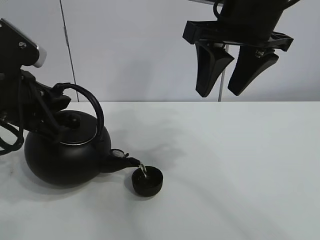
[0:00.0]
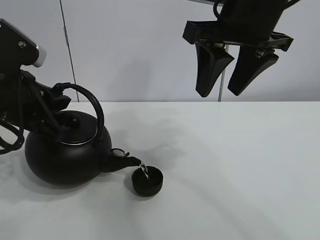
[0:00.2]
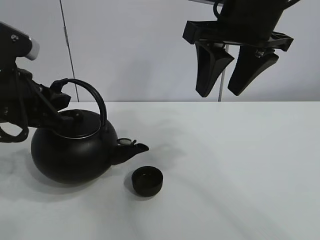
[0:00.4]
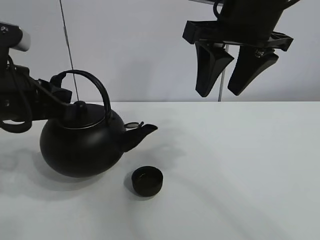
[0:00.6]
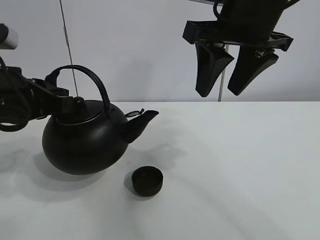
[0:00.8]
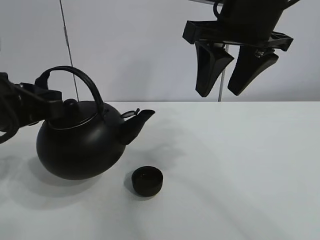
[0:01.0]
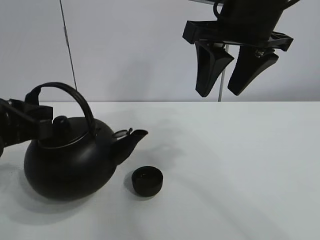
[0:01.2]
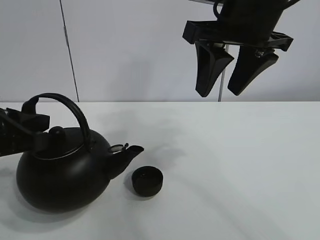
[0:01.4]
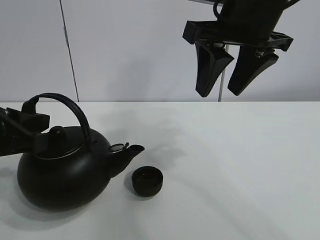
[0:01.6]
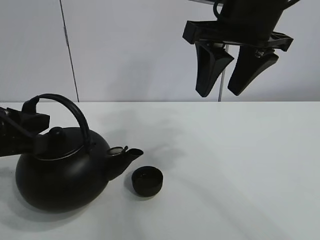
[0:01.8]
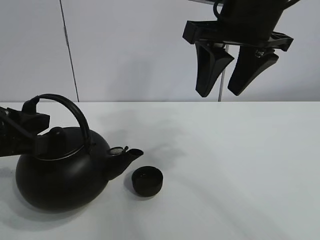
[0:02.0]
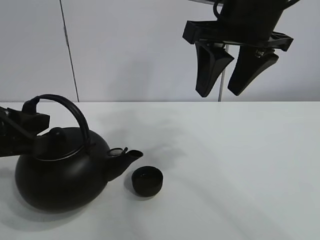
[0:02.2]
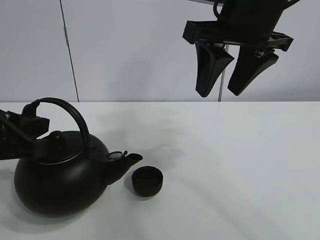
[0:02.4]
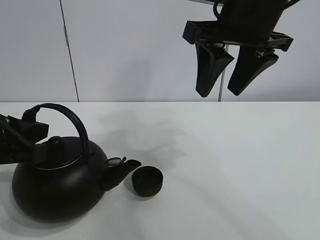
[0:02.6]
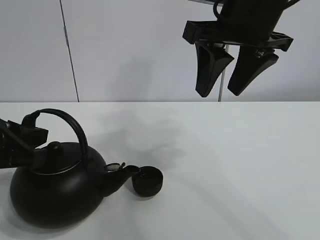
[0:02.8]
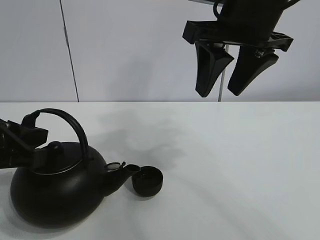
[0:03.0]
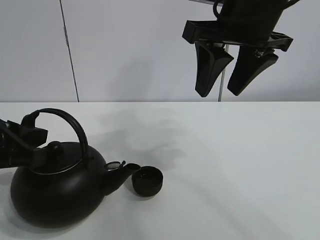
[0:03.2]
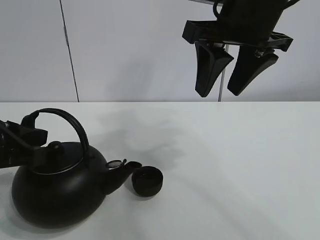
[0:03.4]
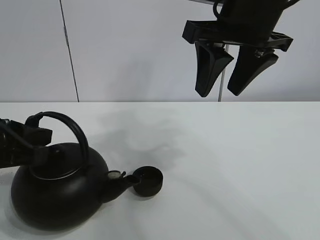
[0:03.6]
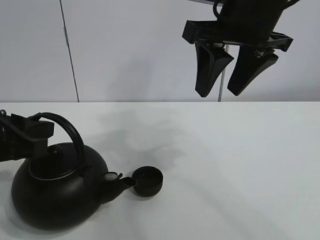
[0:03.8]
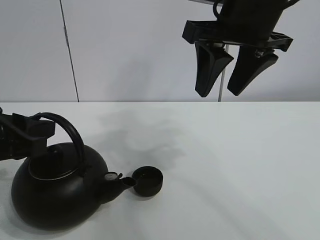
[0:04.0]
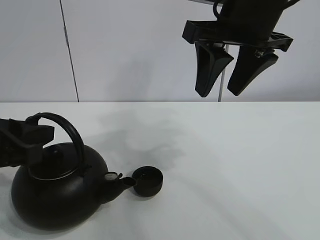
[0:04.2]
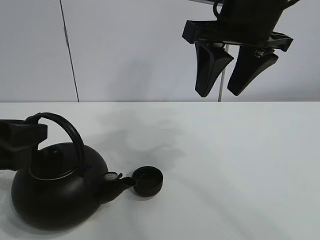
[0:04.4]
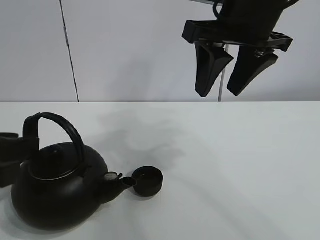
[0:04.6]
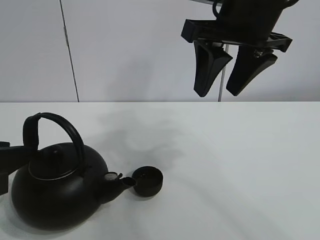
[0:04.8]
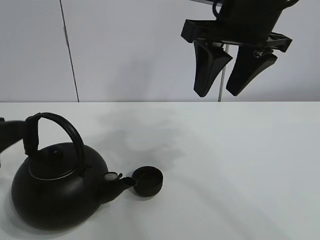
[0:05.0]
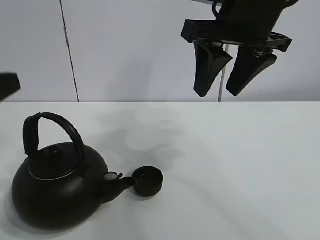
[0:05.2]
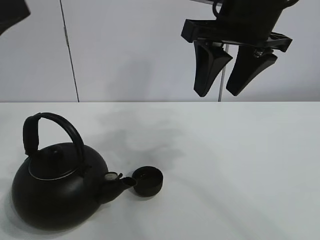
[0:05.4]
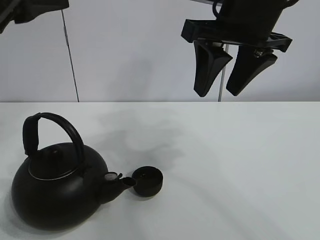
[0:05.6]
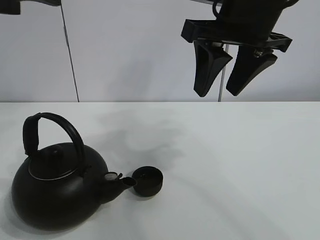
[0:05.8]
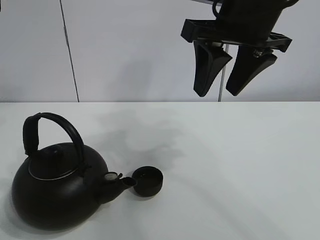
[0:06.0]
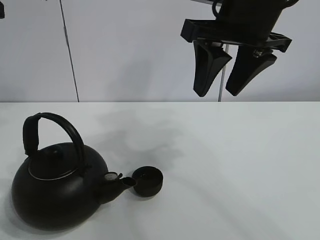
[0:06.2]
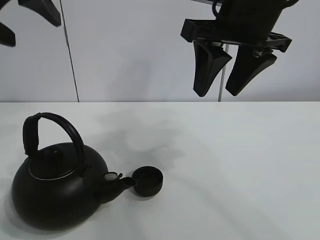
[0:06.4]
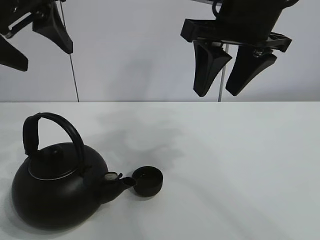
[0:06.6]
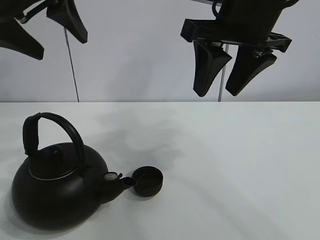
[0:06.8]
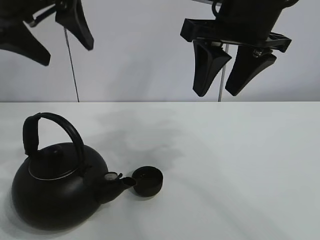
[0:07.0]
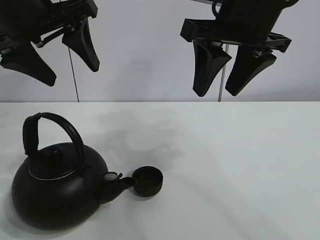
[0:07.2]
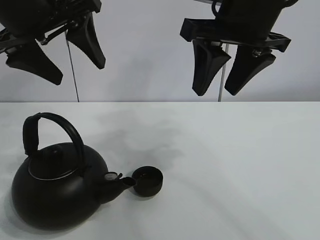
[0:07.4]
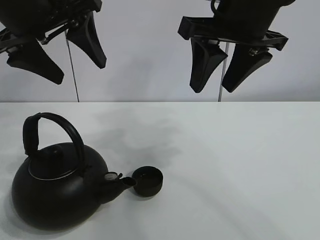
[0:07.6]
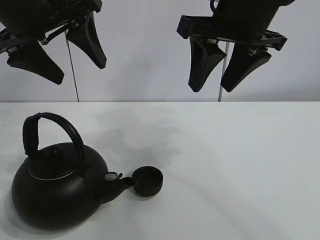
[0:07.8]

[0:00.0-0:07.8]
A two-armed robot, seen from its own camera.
Task of the whole recording: pour tea into the teacup.
0:00.0 to 0:01.6: The left gripper changes place by some 5 cm.
0:01.6 to 0:03.2: There are only small adjustments of the grippers.
0:03.2 to 0:04.6: The left gripper opens up.
0:04.6 to 0:06.2: The left gripper moves upward, about 20 cm, and opens.
0:06.2 to 0:07.8: The left gripper goes roughly 5 cm downward.

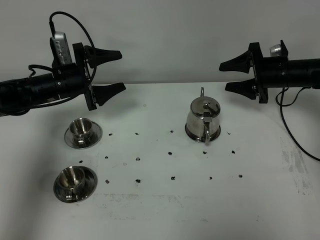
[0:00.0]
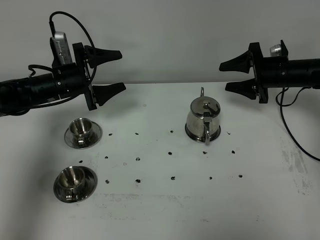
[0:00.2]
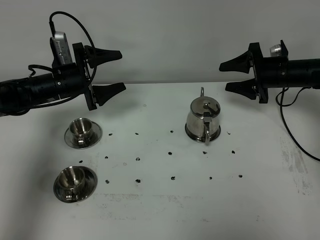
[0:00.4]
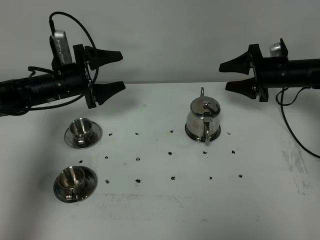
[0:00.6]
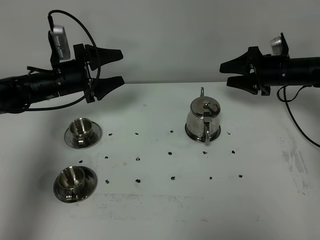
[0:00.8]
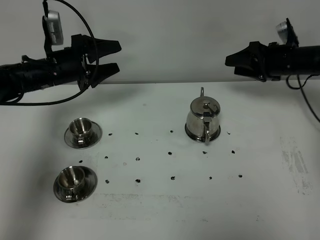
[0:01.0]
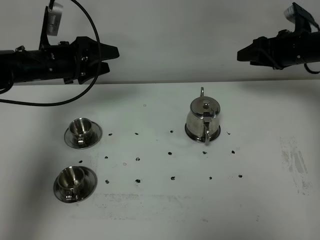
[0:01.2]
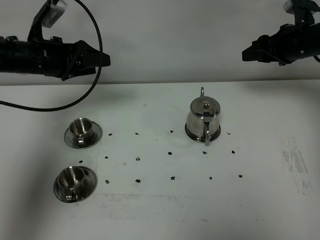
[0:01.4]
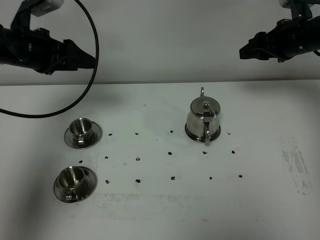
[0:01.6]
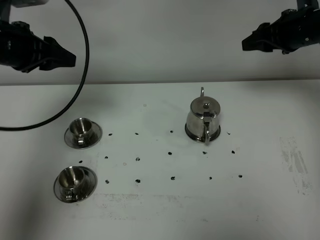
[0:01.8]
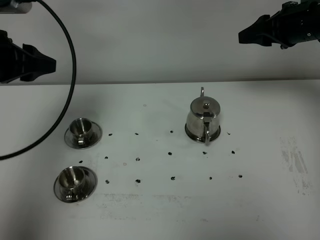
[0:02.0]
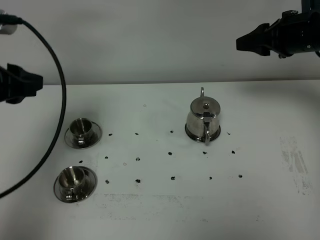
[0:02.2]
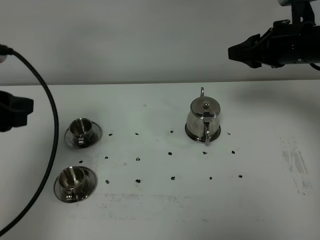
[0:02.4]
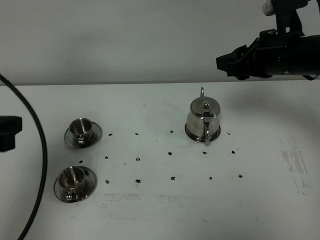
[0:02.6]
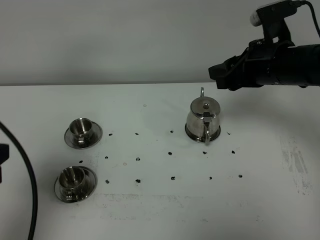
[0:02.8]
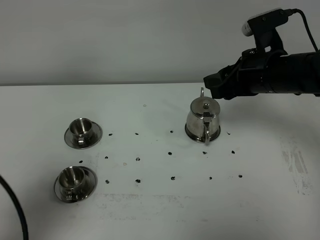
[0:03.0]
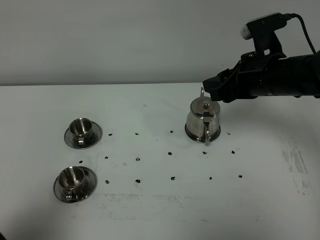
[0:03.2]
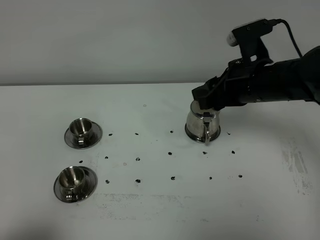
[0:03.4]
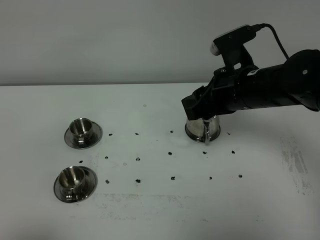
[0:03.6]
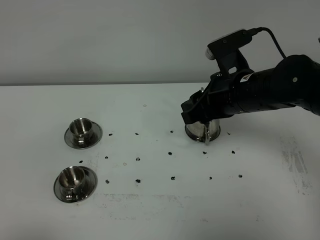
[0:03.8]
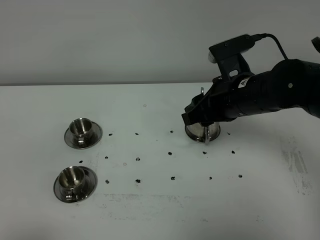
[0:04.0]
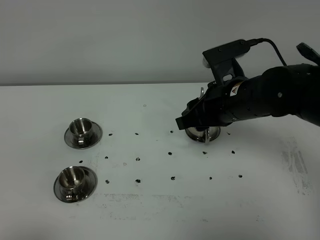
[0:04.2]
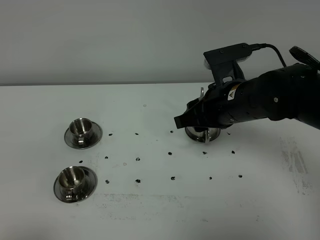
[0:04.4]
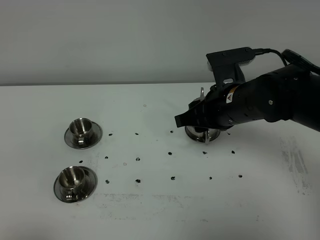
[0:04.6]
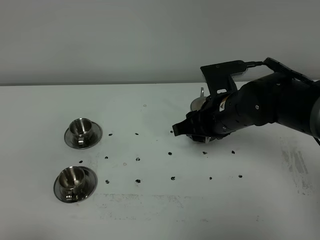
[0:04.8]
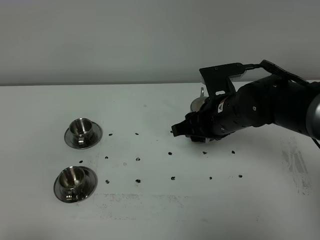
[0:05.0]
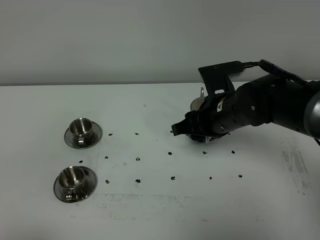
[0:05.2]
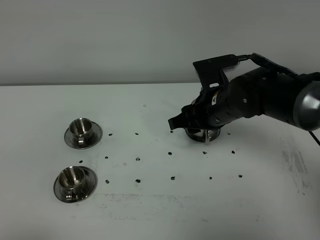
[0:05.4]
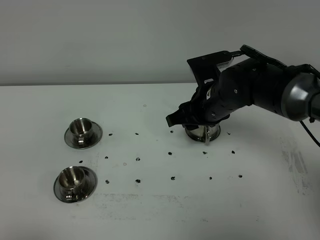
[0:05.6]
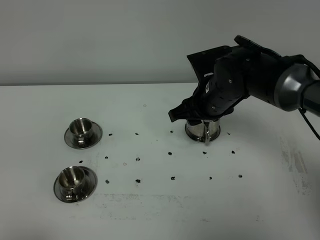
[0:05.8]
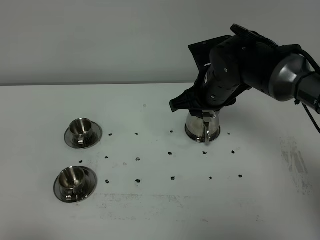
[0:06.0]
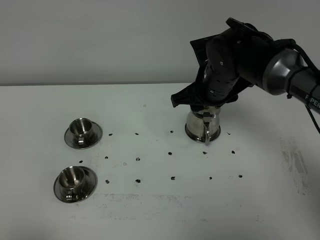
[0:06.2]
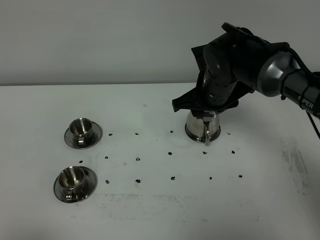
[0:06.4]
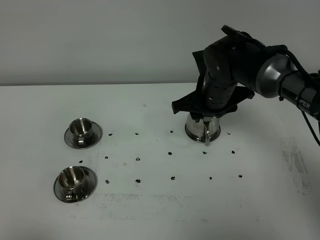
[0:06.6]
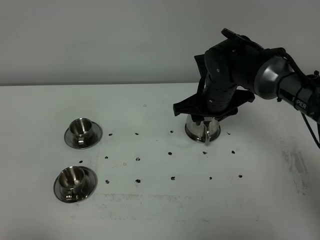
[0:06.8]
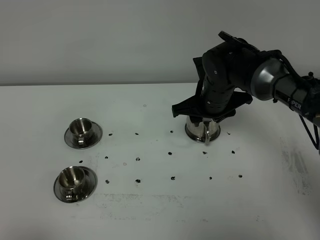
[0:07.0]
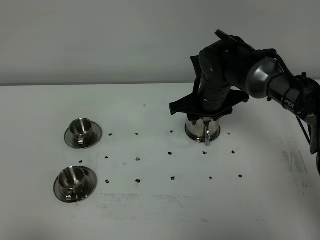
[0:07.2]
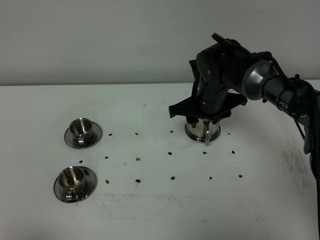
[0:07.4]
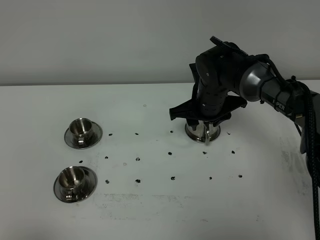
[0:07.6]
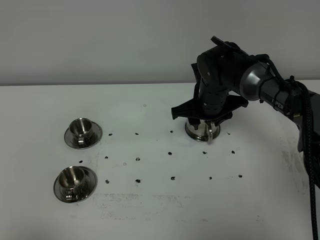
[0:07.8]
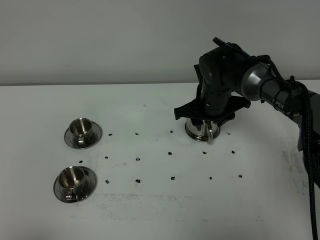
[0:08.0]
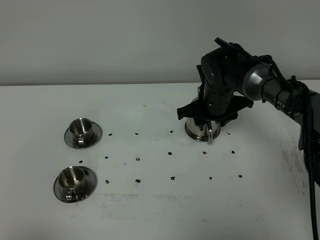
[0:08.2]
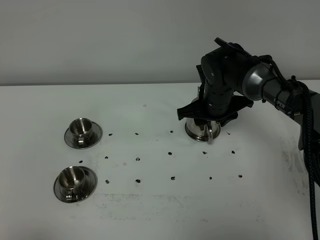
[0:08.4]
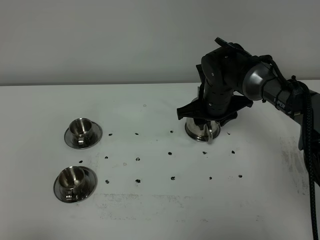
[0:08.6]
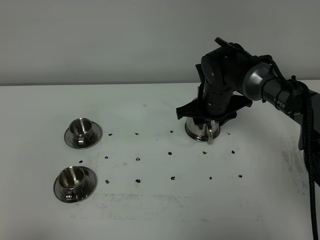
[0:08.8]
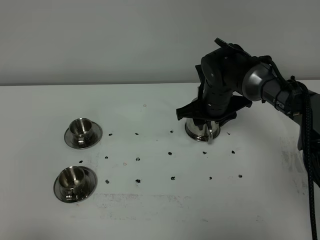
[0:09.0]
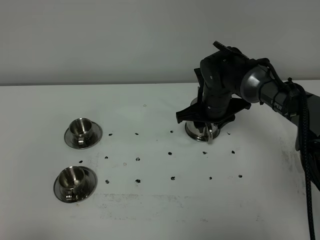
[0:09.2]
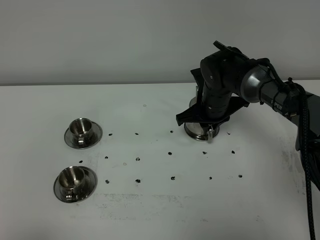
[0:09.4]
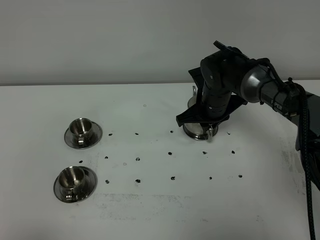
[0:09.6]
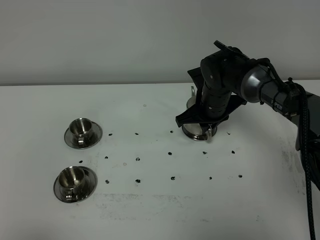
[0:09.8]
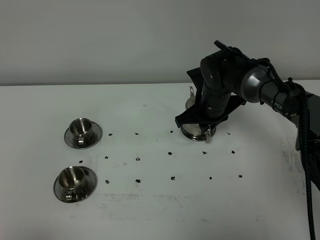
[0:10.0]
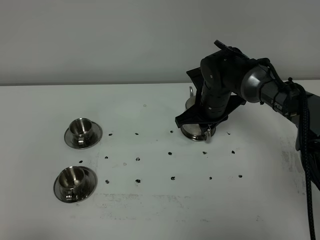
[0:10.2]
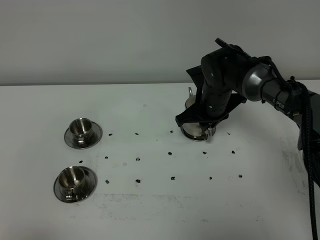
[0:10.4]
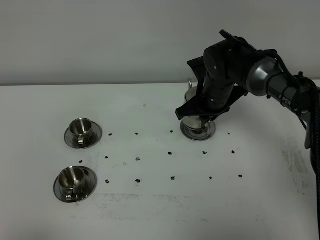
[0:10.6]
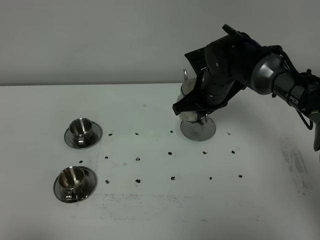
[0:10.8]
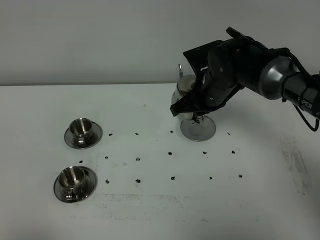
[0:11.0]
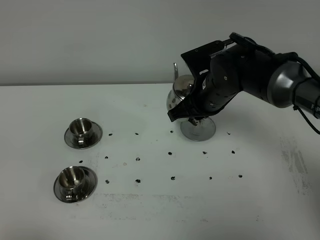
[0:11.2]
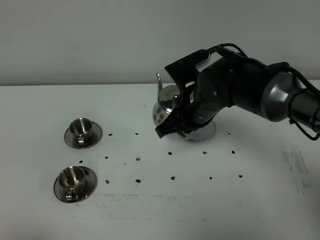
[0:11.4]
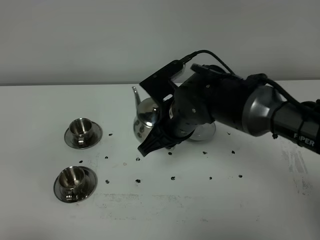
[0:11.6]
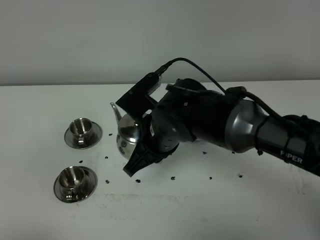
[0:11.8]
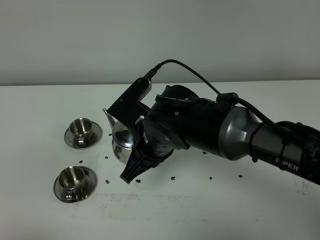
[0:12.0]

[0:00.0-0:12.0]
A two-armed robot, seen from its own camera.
Task of the whole recording: grasp the stainless steel teapot and pour the tea into the two stainless steel teacups one by one, put the stainless steel teapot back in its original place.
Step, 0:00.0 to 0:10.6: Pick up the teapot with the right gripper.
0:00.0 to 0:01.6: Both grippers move upward, about 15 cm. The left gripper closes up.
0:01.6 to 0:03.0: The left gripper is displaced backward by roughly 30 cm, while the right gripper travels backward and to the left by roughly 15 cm.
0:03.0 to 0:04.4: The left gripper shifts approximately 10 cm backward; the right gripper moves to the left, approximately 5 cm.
0:04.4 to 0:06.0: The right gripper is displaced forward by about 5 cm.
0:06.0 to 0:07.6: The right gripper is displaced downward by some 5 cm.
0:07.6 to 0:09.0: The grippers make only small movements.
0:09.0 to 0:10.4: The right gripper closes up.
0:10.4 to 0:12.0: The right gripper moves backward and to the left, about 20 cm.

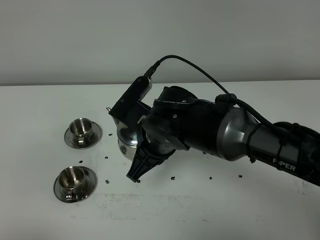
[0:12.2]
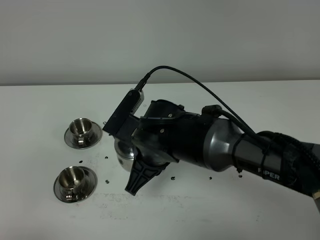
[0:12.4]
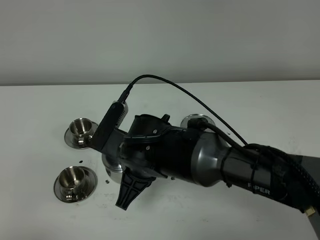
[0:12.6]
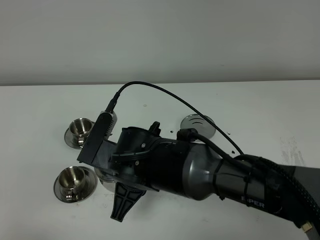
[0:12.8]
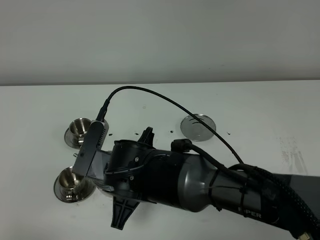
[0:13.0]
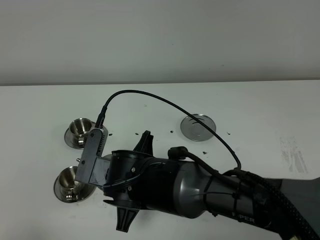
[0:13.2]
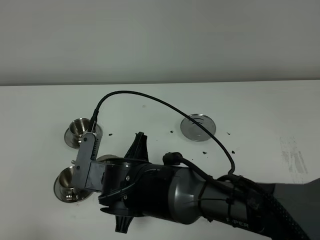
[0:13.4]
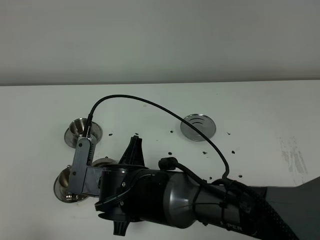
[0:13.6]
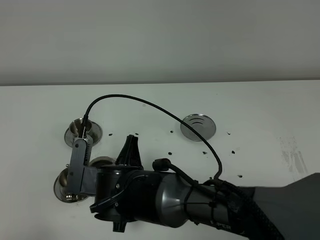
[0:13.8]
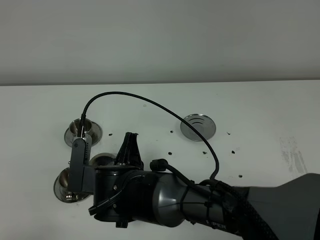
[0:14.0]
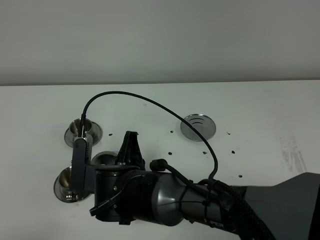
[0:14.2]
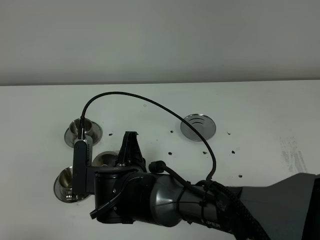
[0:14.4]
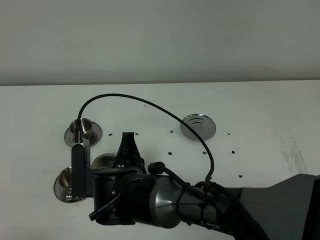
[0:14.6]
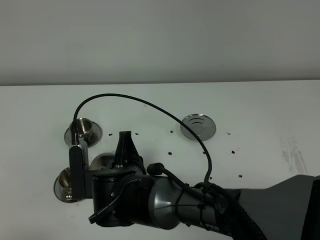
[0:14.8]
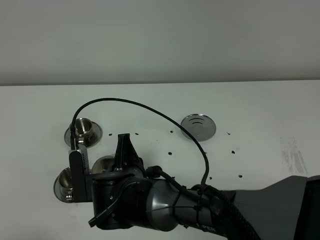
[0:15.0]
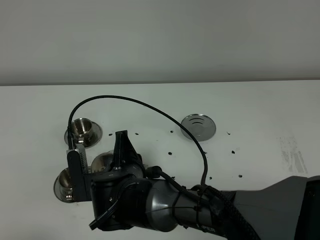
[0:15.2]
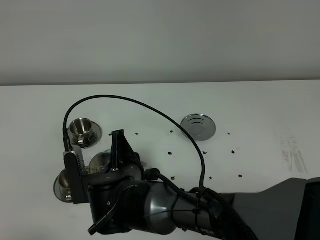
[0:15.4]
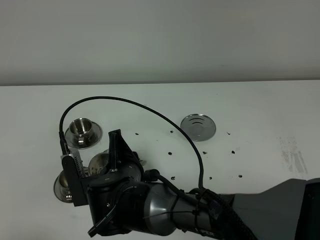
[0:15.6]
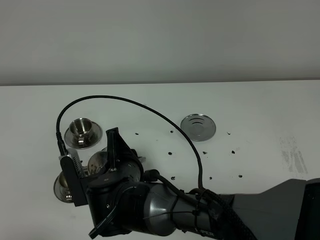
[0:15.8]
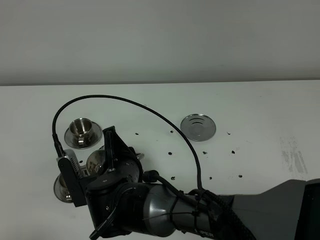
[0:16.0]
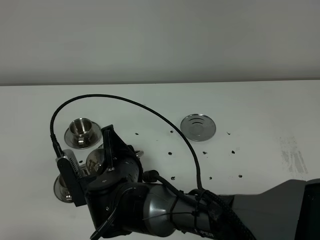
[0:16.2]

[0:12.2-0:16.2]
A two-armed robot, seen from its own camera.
Task of the whole recording: grasp the stainless steel teapot and pour the tea into the two stainless steel teacups one by one, put the stainless steel teapot back in its original place.
0:12.2 to 0:13.6: The right gripper travels backward, to the left and downward by some 10 cm.
0:13.6 to 0:14.8: The grippers make only small movements.
0:14.8 to 0:16.2: There are only small adjustments of the grippers.
